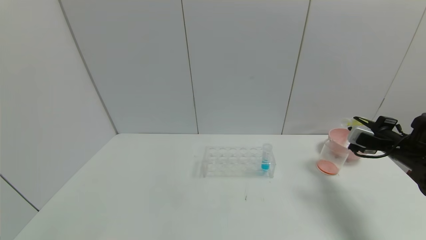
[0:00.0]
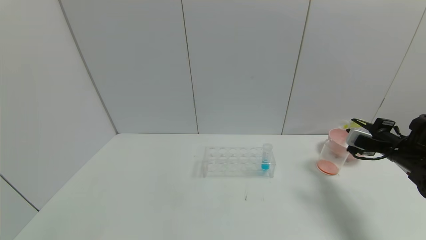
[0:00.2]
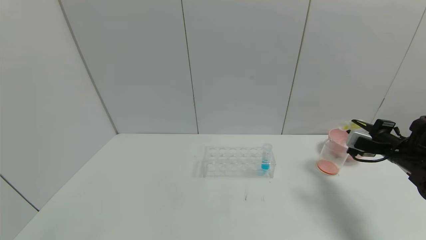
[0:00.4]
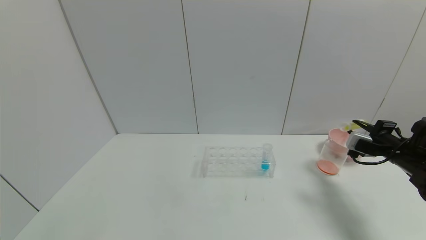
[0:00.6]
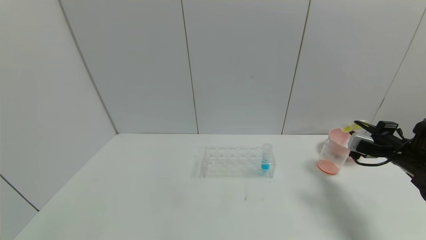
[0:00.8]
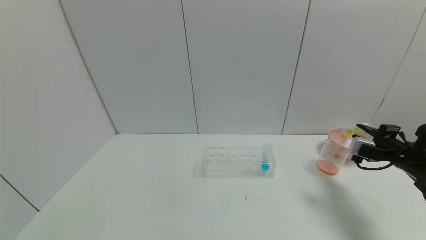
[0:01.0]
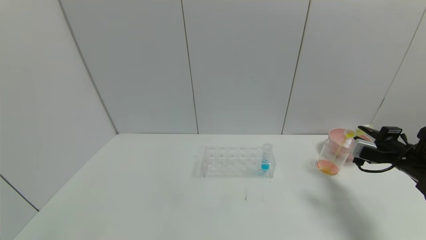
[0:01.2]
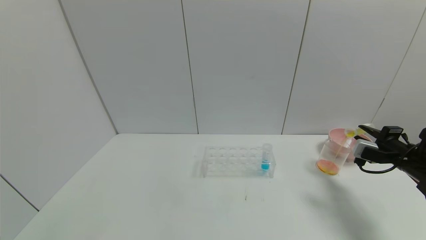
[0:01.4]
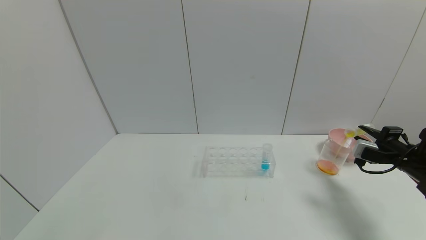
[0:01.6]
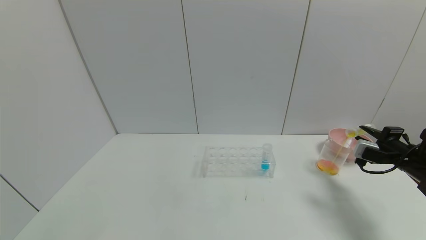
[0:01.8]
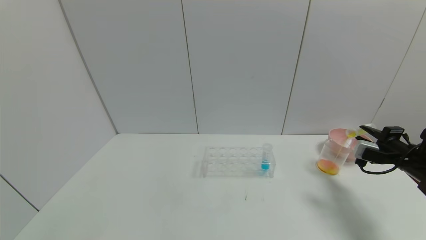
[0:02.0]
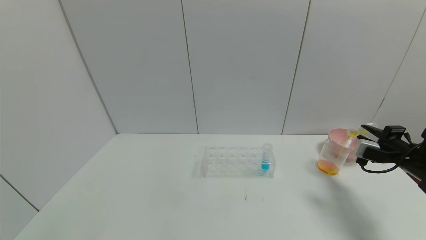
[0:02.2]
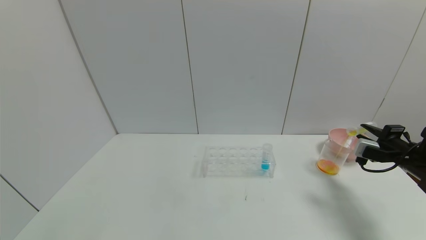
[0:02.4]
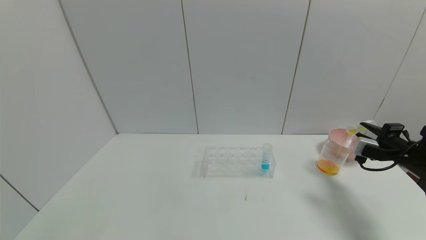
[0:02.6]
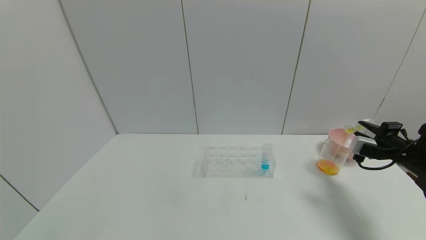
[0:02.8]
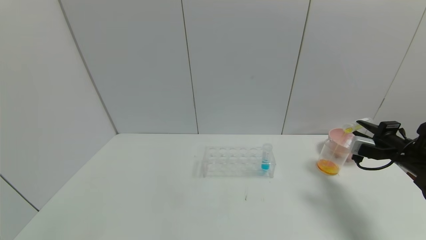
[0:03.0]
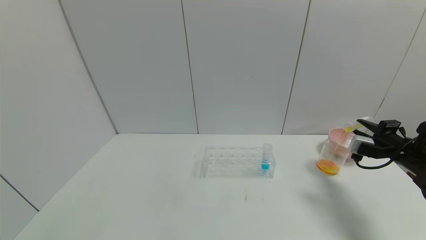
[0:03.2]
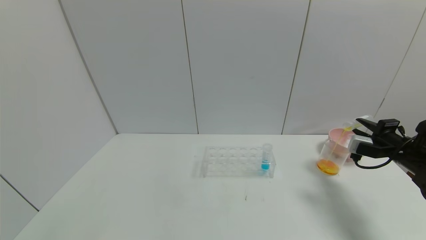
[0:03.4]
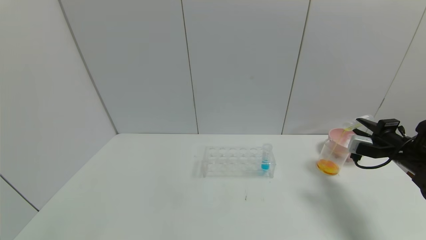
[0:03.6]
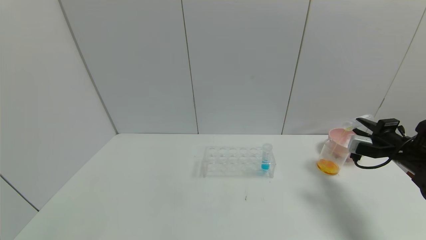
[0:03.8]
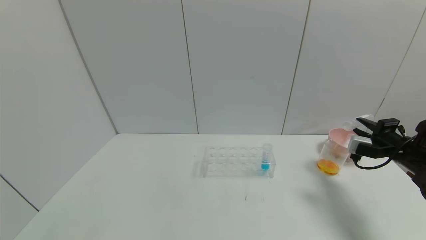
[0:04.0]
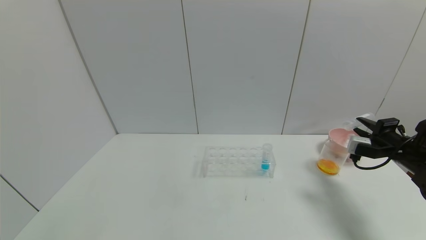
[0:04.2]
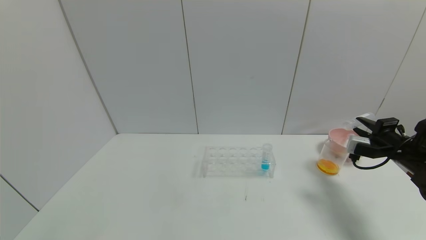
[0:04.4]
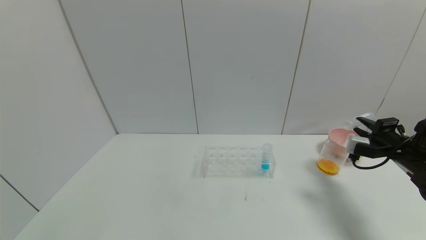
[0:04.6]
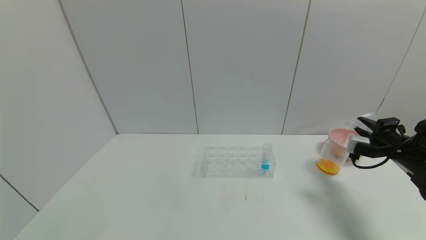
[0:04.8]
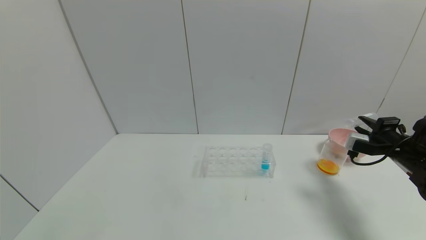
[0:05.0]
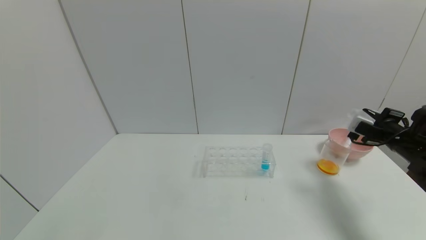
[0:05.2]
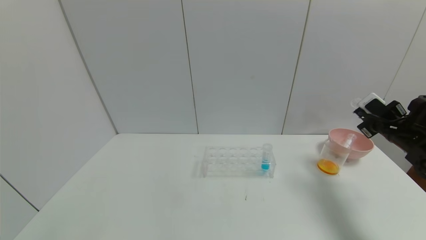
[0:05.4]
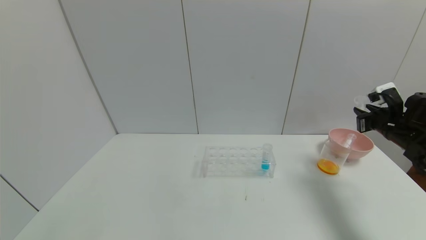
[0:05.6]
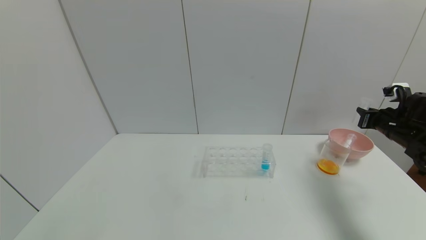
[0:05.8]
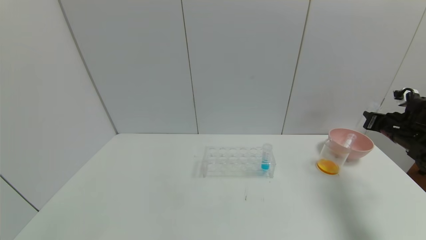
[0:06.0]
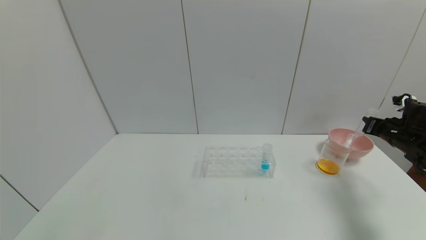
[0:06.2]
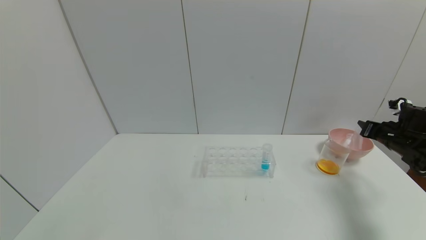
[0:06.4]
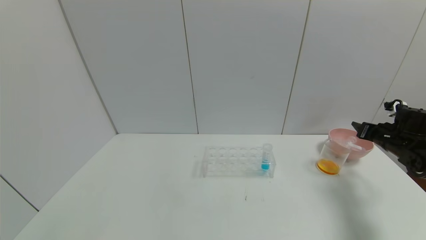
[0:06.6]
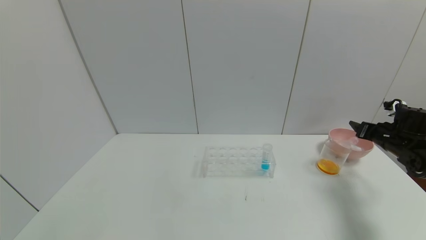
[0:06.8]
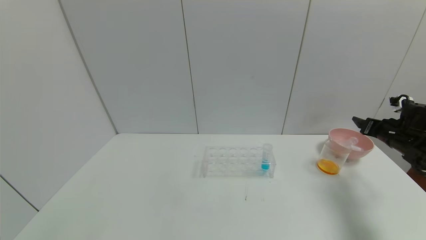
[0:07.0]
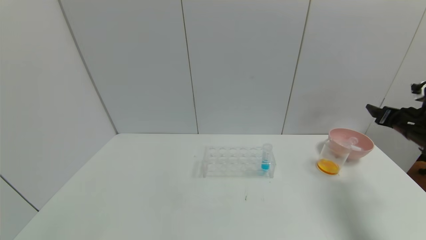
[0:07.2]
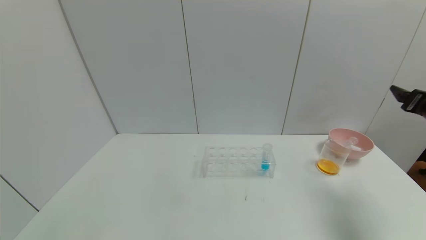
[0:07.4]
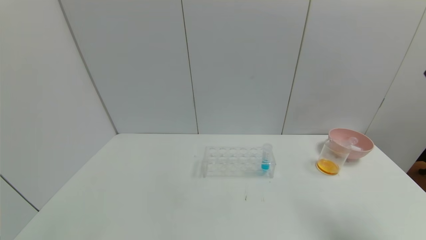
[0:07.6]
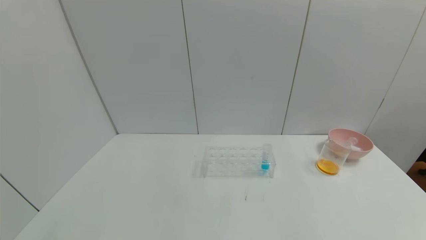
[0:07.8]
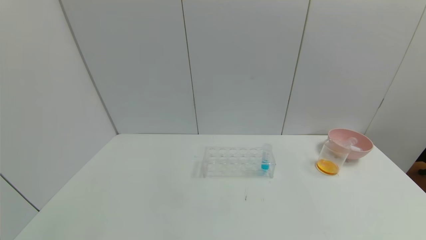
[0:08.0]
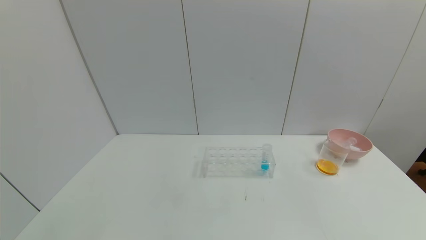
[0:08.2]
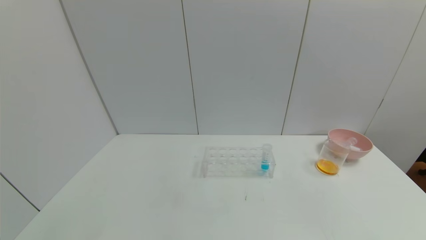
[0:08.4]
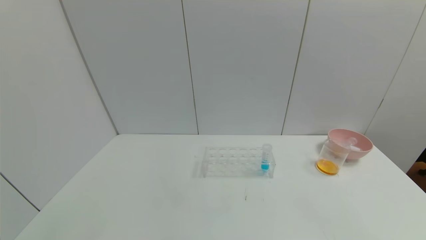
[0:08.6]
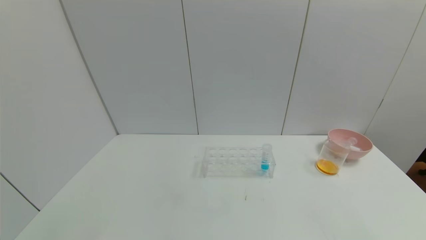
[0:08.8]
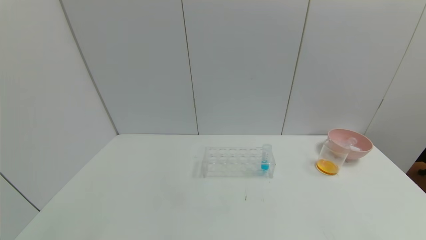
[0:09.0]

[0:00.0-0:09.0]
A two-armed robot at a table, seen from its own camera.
Task of the whole recording: pick up the test tube with yellow pigment and the test tube with red pigment by grippers and pour them into the beaker.
Step, 0:00.0 to 0:04.0: Pour the yellow reagent into the graduated cylinder with the right gripper.
Step, 0:04.2 to 0:06.4: Place the test tube into the bowl with the right gripper.
0:00.0 to 0:01.6: The grippers make only small movements.
0:01.6 to 0:03.0: Both grippers stay put.
0:03.0 to 0:04.4: The grippers make only small movements.
0:04.4 to 0:06.0: The right gripper changes place by roughly 5 cm.
0:06.0 to 0:07.6: The right gripper moves backward and upward, approximately 20 cm, and opens its fingers.
0:07.6 to 0:09.0: The right gripper travels backward and downward by roughly 30 cm.
